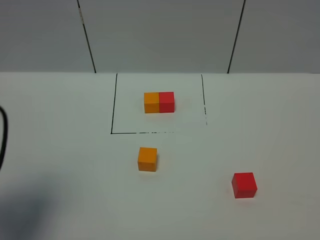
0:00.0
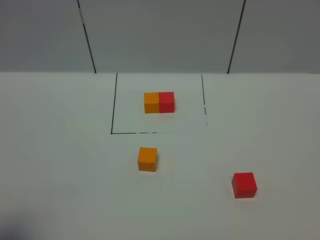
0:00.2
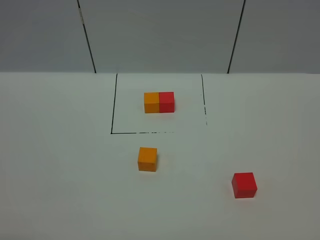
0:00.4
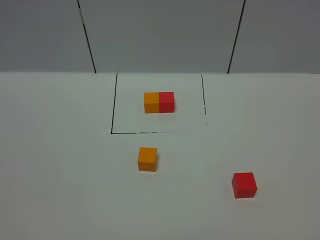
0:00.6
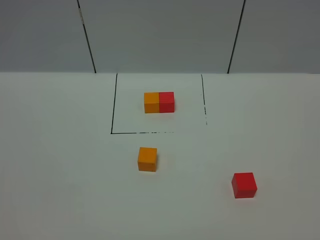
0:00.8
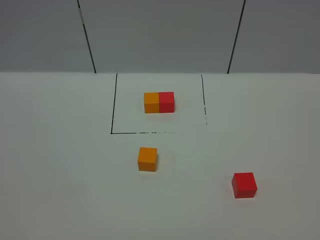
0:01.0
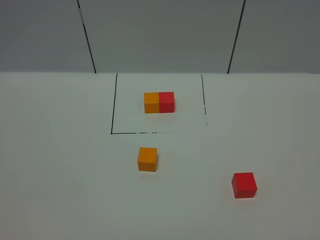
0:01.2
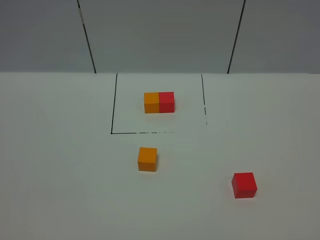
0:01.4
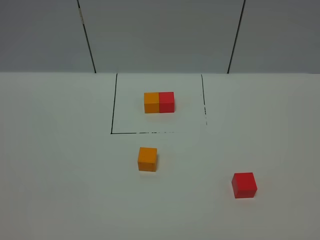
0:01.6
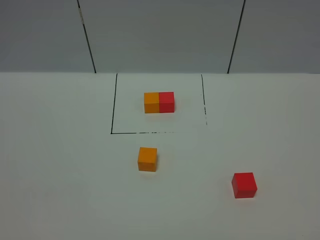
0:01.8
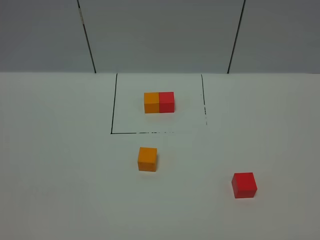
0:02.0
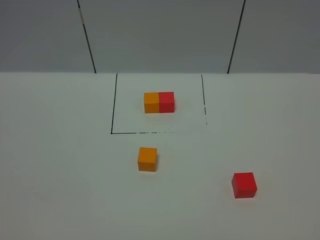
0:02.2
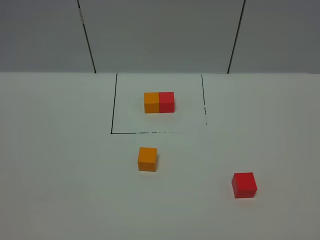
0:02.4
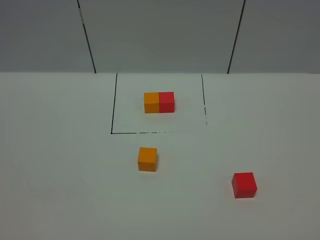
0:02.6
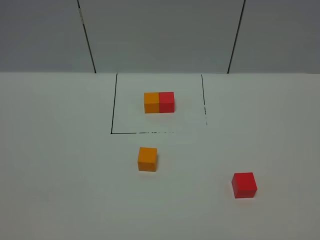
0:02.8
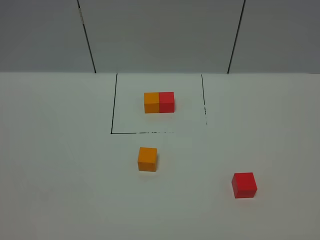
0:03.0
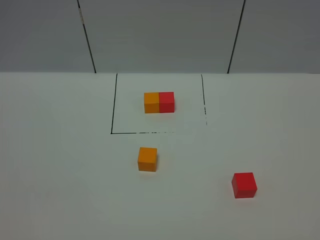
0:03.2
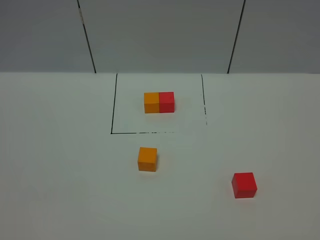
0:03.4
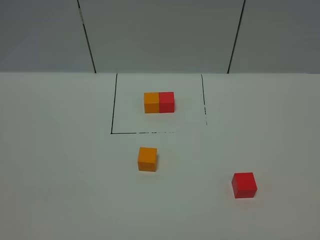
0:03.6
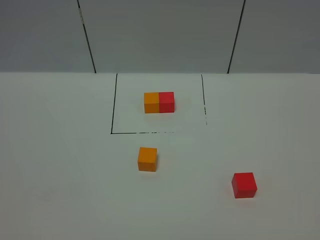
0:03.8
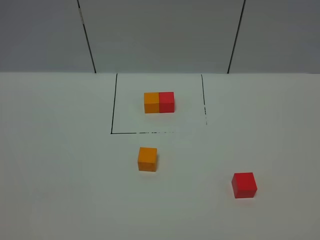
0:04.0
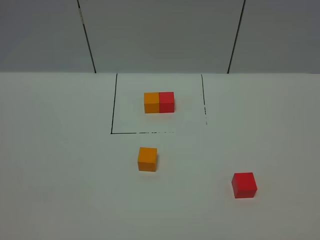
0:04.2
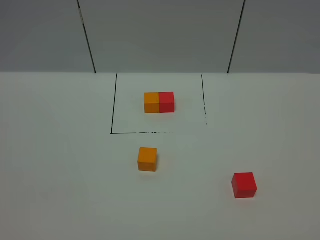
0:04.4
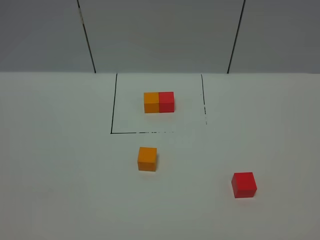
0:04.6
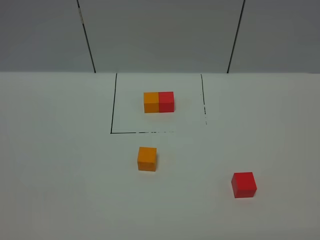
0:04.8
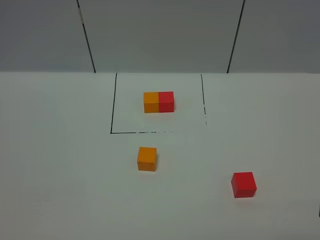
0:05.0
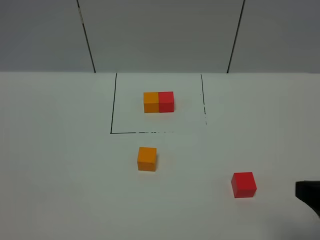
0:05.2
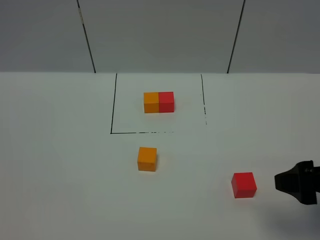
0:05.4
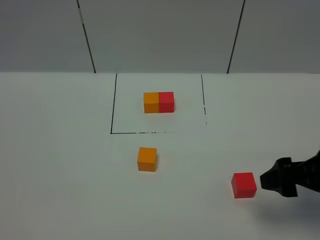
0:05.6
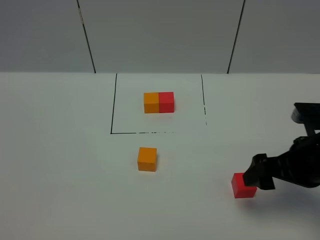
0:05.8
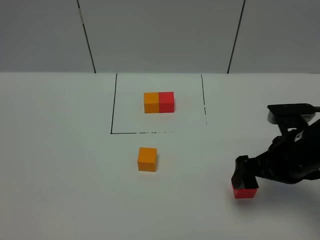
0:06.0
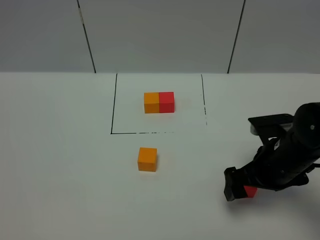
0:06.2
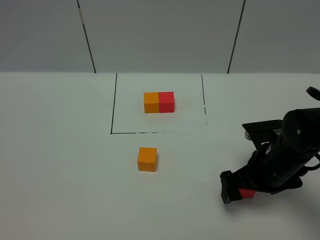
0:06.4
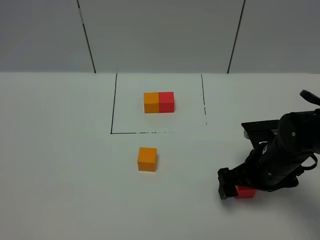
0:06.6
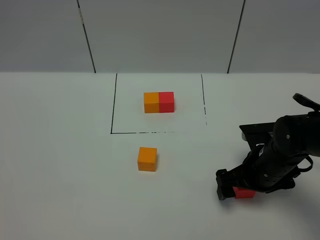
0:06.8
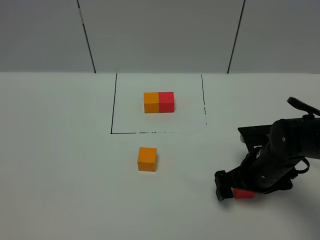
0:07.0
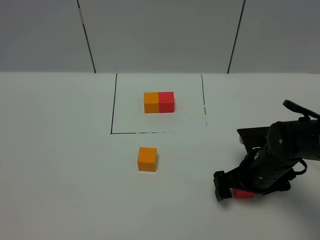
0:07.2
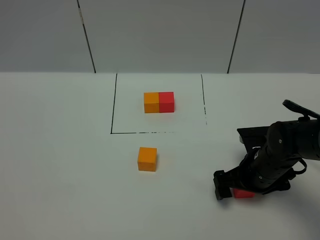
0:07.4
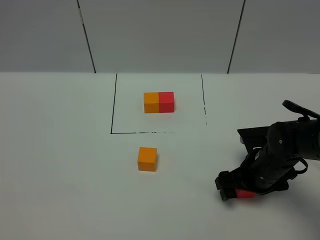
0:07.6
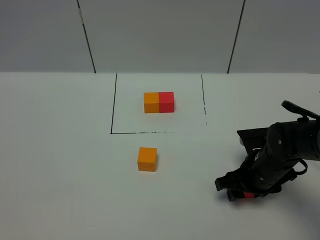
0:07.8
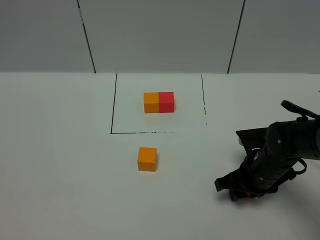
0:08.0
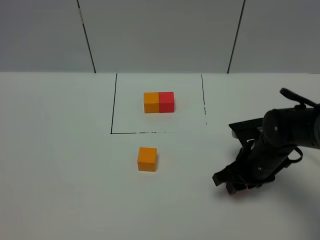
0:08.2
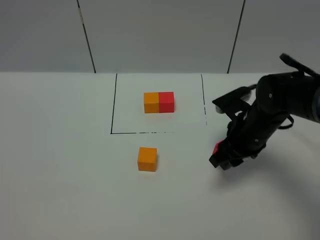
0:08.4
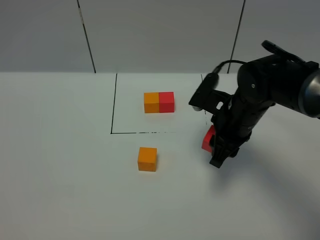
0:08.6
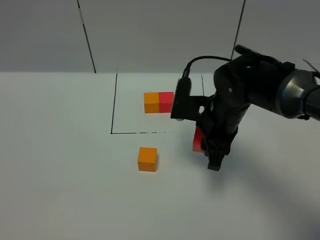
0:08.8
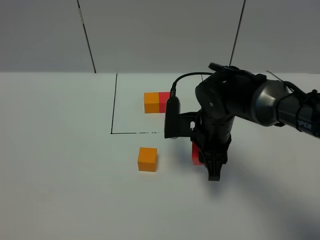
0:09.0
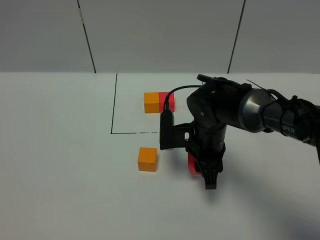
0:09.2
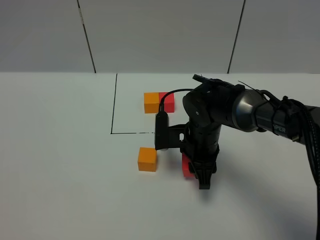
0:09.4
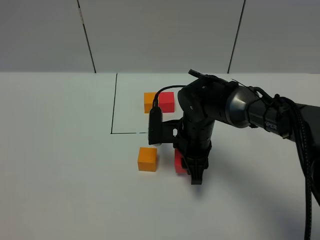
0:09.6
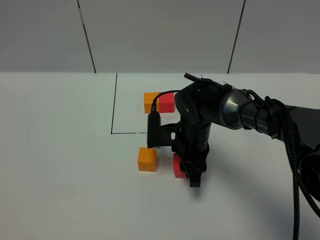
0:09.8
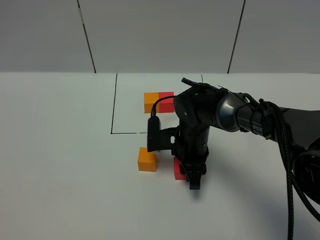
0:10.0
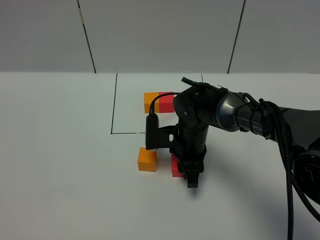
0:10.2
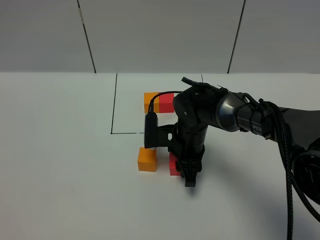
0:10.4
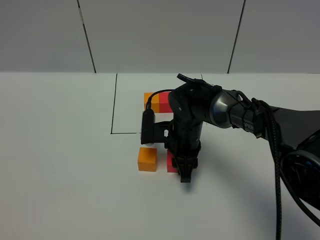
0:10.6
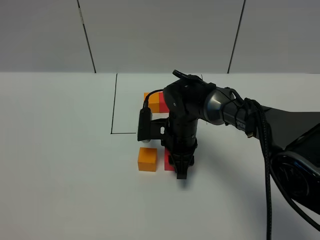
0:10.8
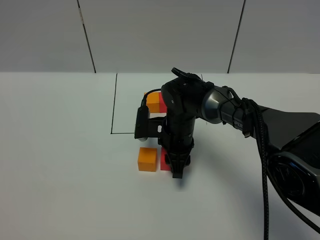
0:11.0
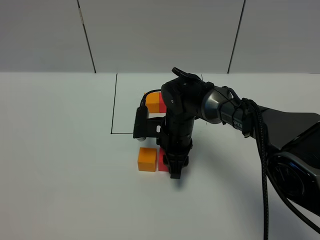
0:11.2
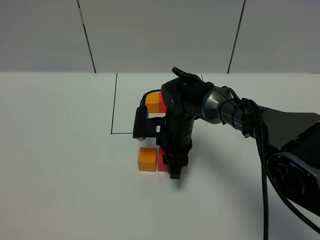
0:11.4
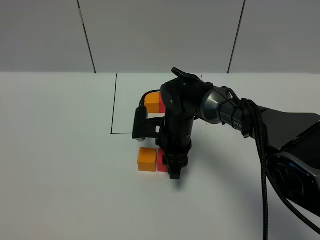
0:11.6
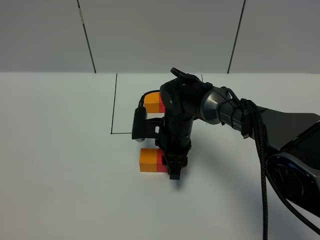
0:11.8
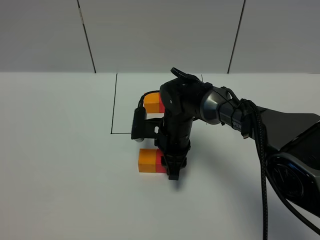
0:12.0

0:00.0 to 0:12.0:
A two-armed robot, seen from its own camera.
Task of the whole recording: According to the building block template in front, assemble the scattered blocks together.
0:00.0 to 0:01.6: The left gripper travels backward by some 15 cm, and closes its fingers.
0:01.6 to 0:04.4: Both grippers stay about where they are.
0:04.4 to 0:06.0: The right gripper moves forward, about 25 cm, and opens.
0:06.0 to 0:07.6: The right gripper goes approximately 10 cm downward.
0:07.6 to 0:09.0: The right gripper travels to the left and upward by roughly 10 cm, and closes up.
0:09.0 to 0:10.4: The right gripper travels downward by about 5 cm.
0:10.4 to 0:12.0: There are only small adjustments of the grippers.

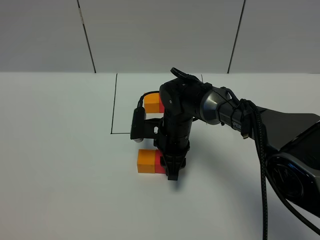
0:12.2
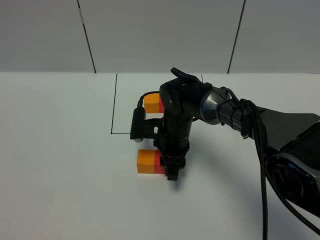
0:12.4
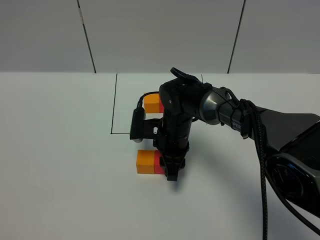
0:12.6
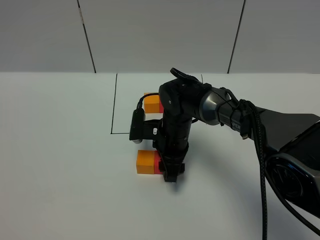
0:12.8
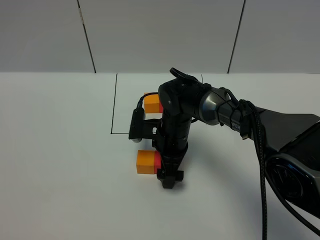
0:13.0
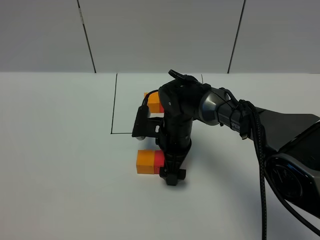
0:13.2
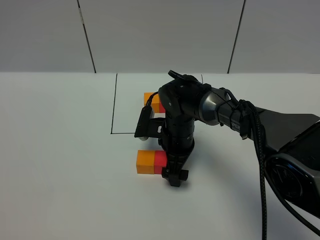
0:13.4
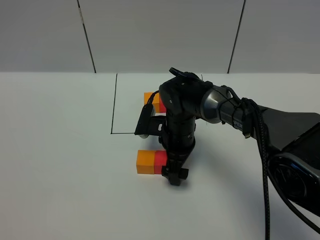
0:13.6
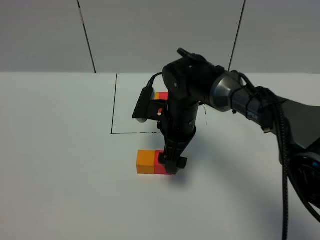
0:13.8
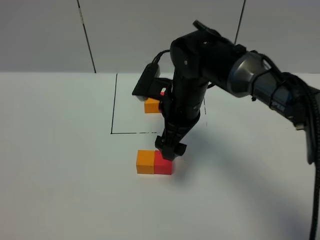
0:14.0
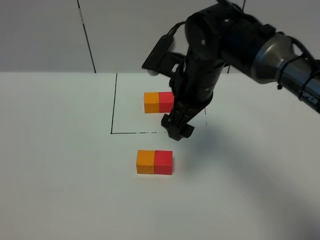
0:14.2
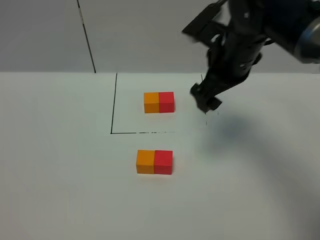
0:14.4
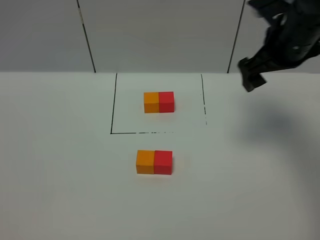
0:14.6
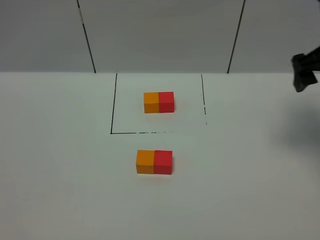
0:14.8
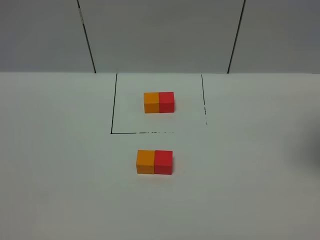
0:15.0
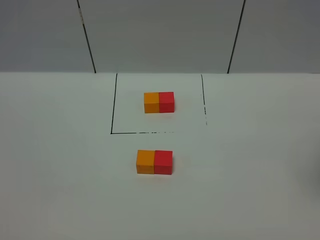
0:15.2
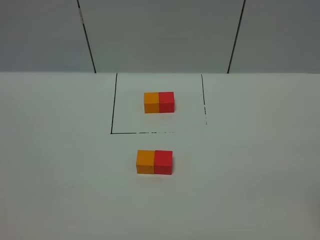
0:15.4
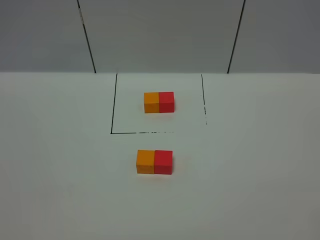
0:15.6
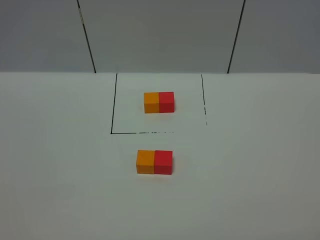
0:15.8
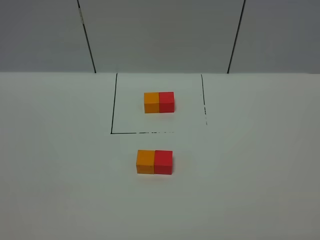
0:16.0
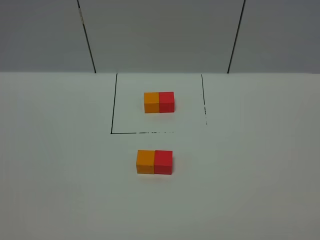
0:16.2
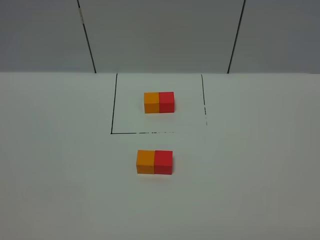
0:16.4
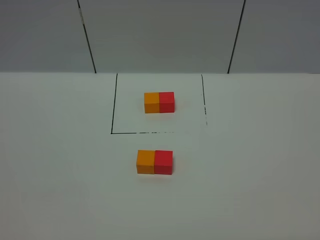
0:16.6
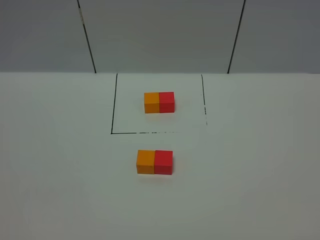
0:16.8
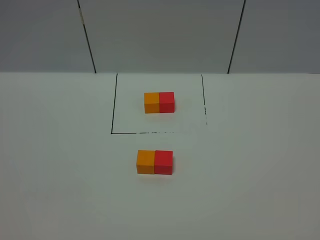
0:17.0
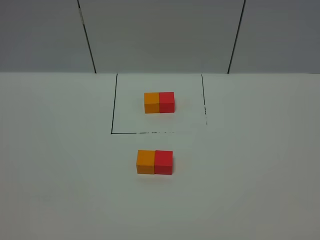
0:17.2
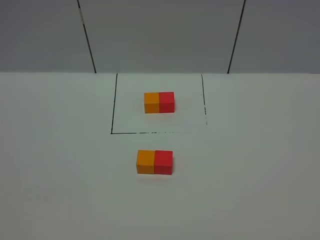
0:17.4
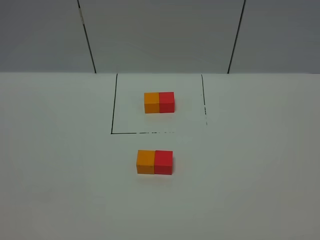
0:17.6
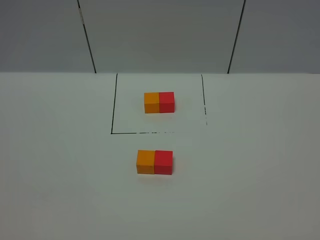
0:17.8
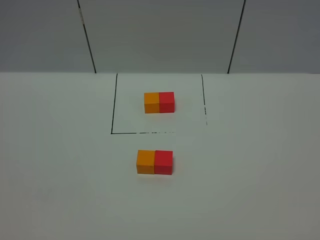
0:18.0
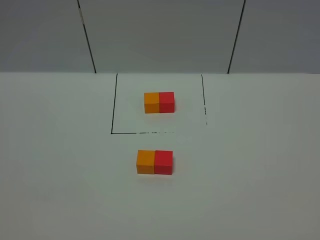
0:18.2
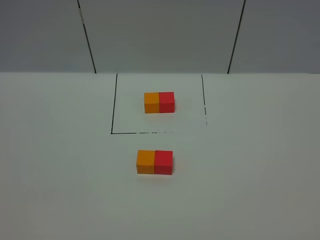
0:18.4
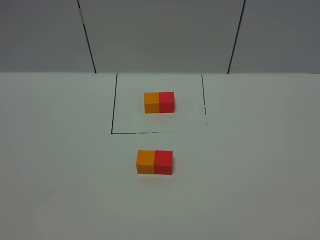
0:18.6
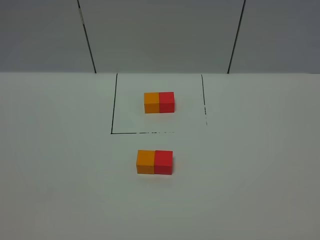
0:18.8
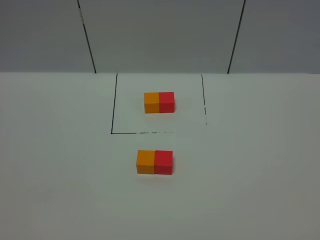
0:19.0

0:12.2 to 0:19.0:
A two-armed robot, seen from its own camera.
Task of the whole recording: According to the building block template in front, assemble the scattered blocks together.
0:12.2 to 0:13.6: The right gripper opens up.
0:13.6 to 0:15.0: The right gripper heads to the right and upward, covering about 35 cm.
0:17.6 to 0:19.0: Both grippers stay about where they are.

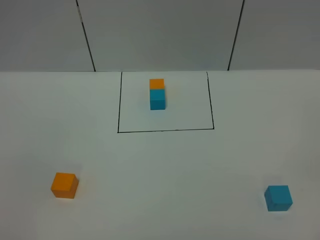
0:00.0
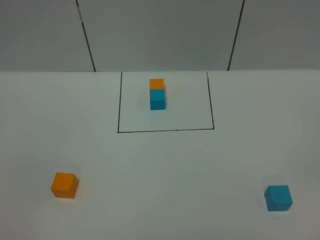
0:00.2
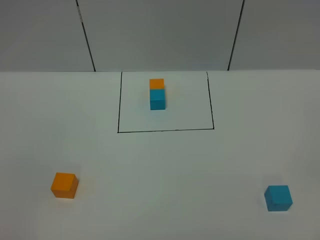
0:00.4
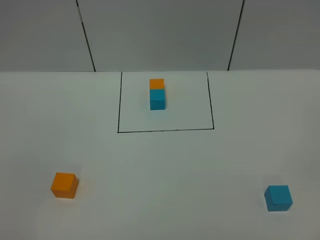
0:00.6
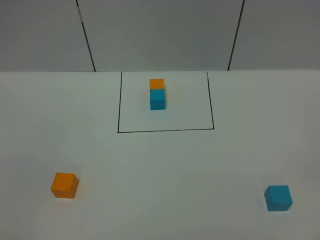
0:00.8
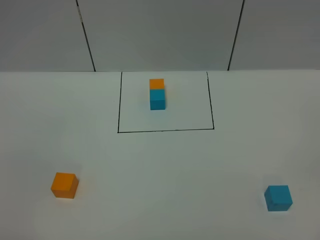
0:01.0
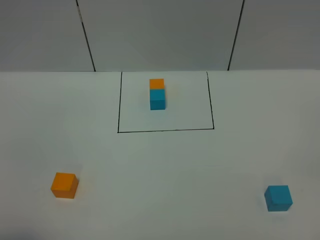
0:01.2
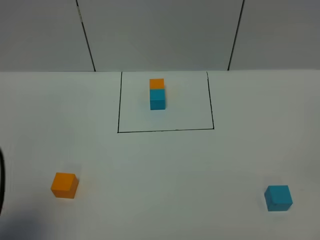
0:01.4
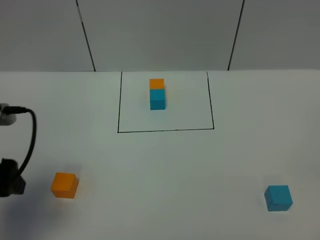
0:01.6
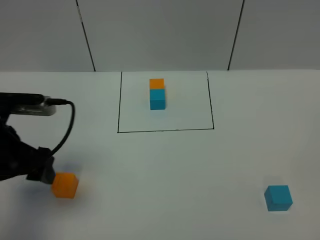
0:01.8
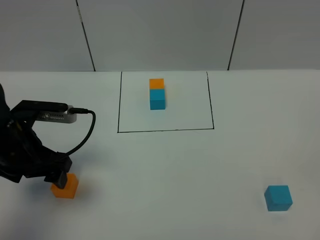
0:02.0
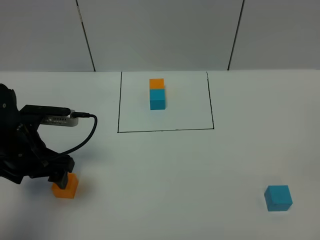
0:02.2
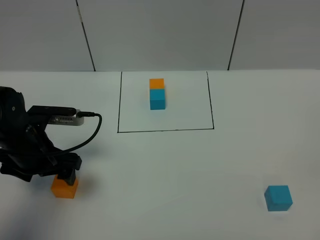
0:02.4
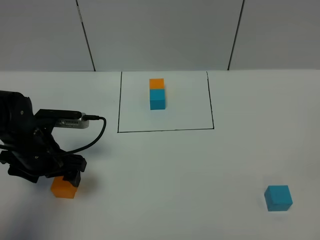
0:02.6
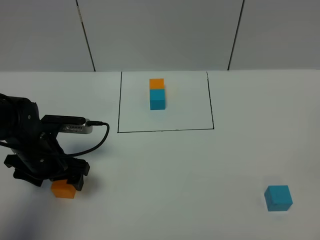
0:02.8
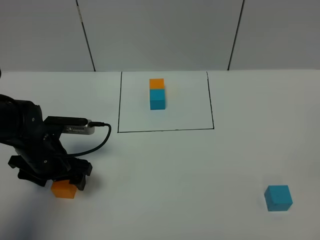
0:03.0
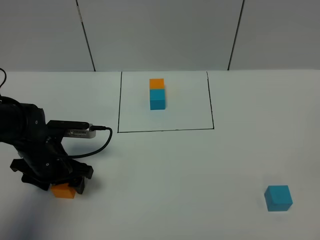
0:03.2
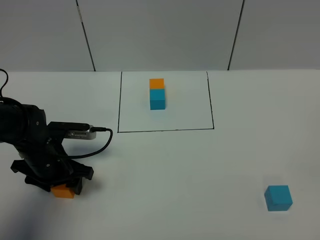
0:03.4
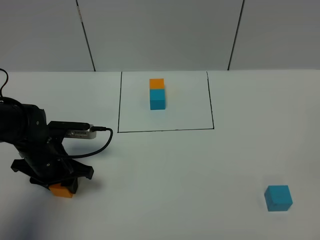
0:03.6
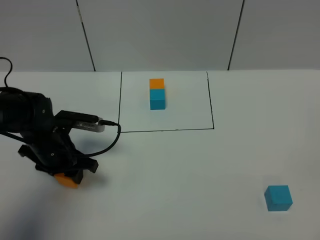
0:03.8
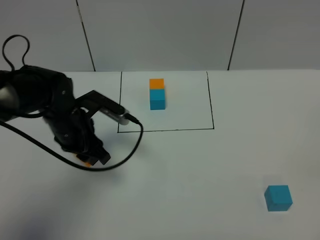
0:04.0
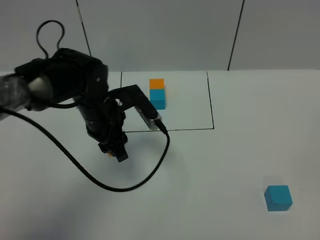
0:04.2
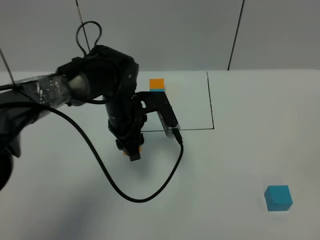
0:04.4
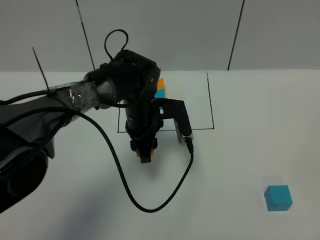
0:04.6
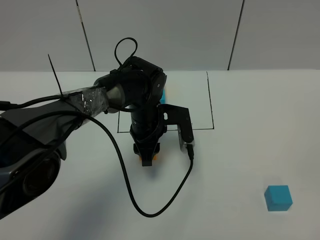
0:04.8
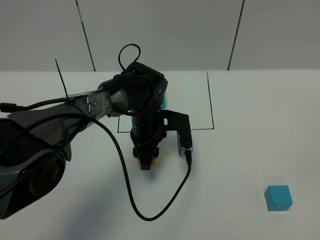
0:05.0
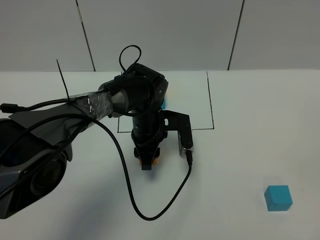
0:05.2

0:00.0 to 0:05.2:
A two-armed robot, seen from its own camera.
Task of the whole recording: According to the building block template in front, assemble the scattered blocks together.
0:00.0 to 0:01.8: The left gripper shifts some 25 cm forward.
0:01.8 to 0:03.4: The left gripper is displaced downward and forward by approximately 15 cm, and closes up.
0:03.4 to 0:05.2: The left gripper is displaced to the right and forward by roughly 20 cm, and closes.
